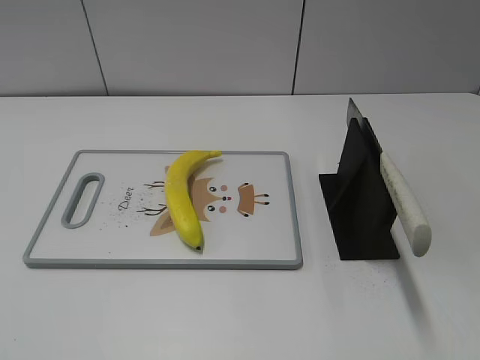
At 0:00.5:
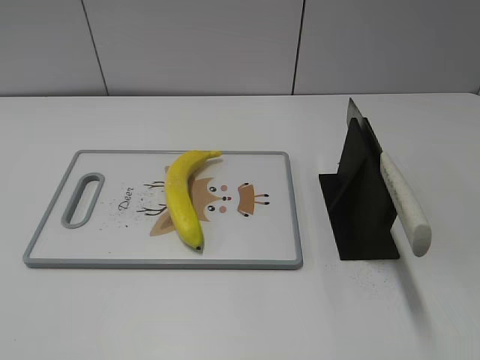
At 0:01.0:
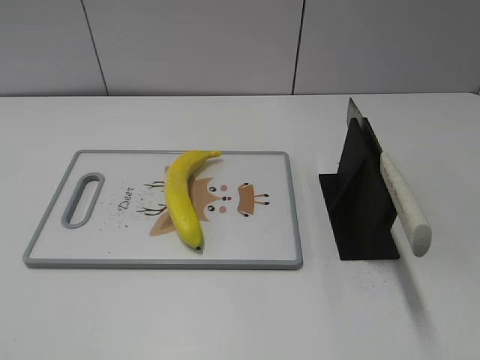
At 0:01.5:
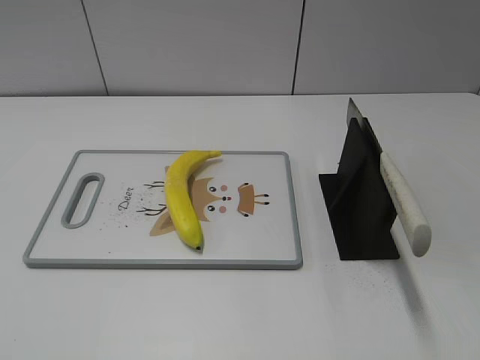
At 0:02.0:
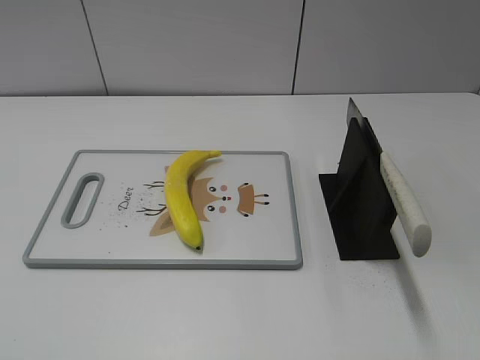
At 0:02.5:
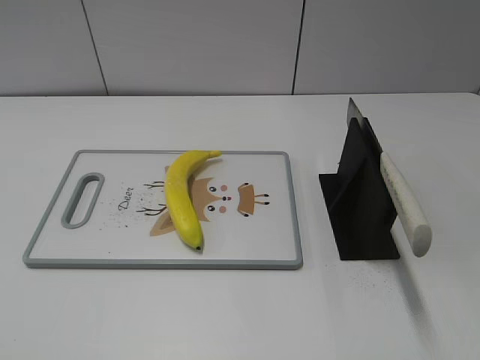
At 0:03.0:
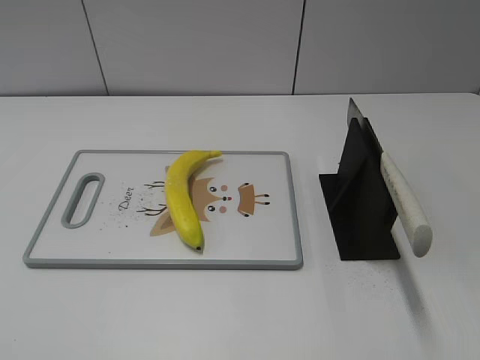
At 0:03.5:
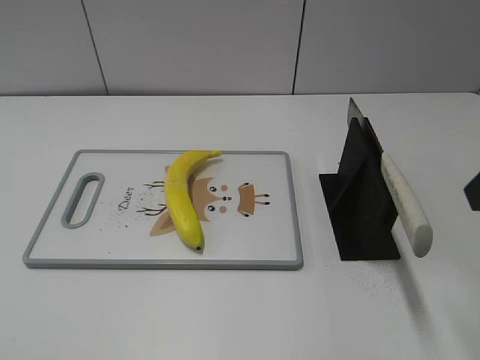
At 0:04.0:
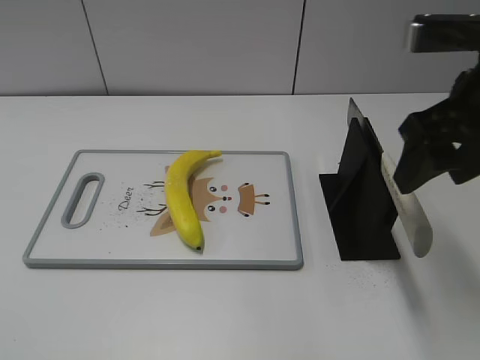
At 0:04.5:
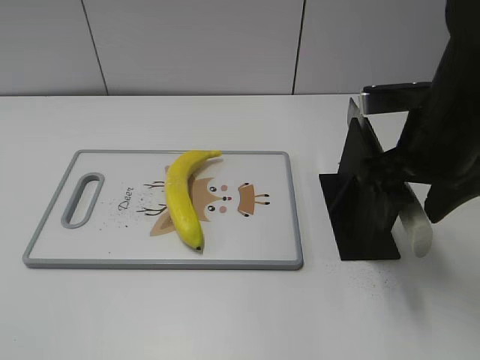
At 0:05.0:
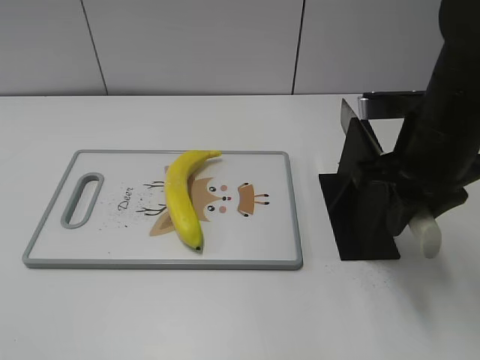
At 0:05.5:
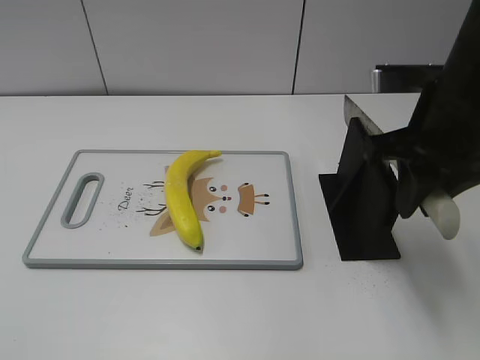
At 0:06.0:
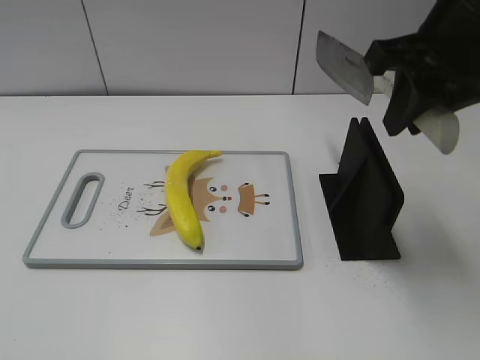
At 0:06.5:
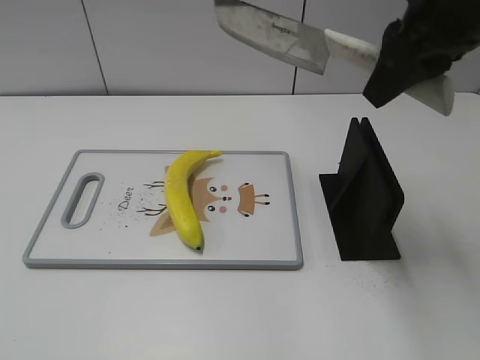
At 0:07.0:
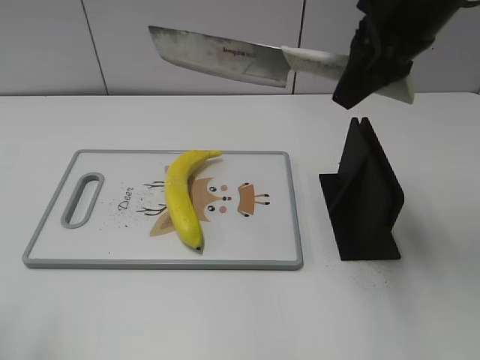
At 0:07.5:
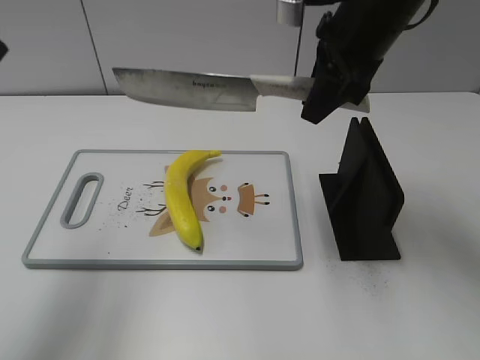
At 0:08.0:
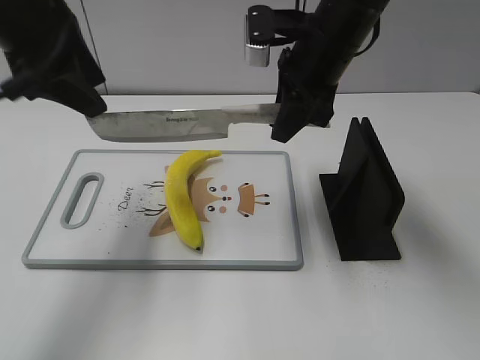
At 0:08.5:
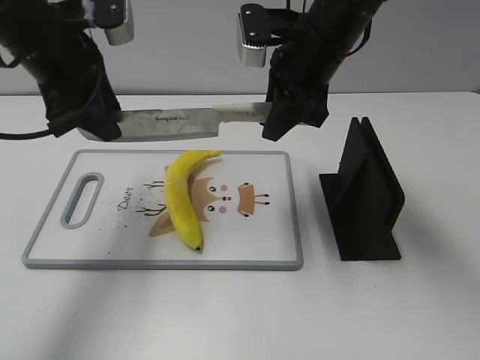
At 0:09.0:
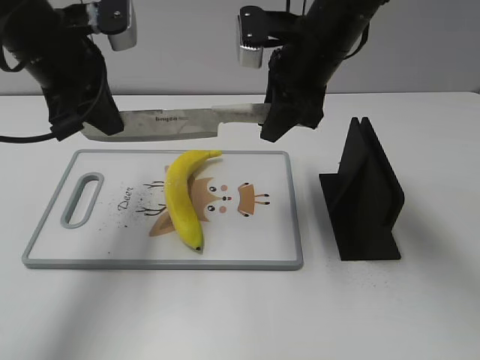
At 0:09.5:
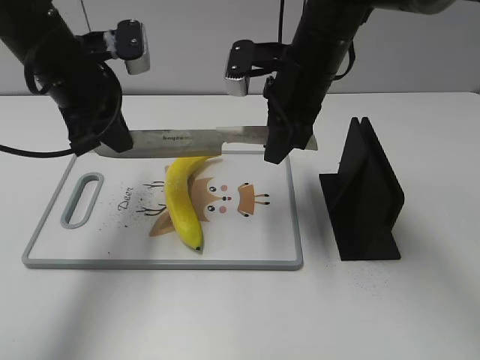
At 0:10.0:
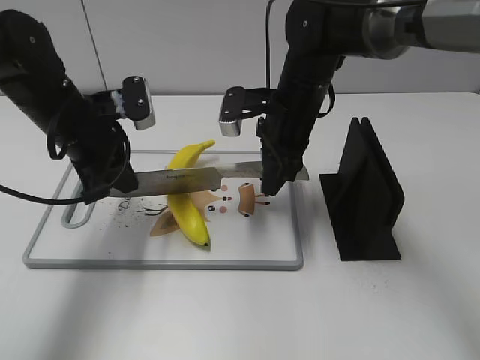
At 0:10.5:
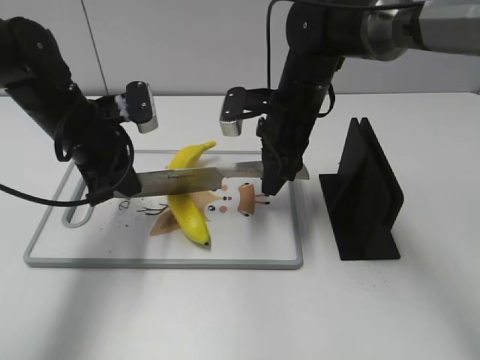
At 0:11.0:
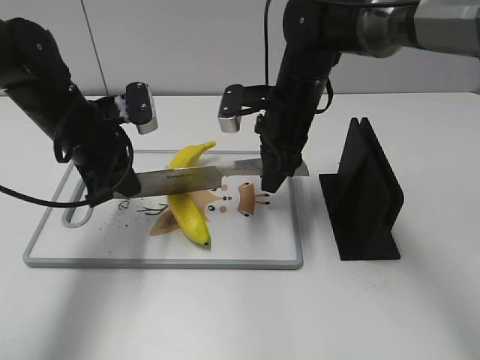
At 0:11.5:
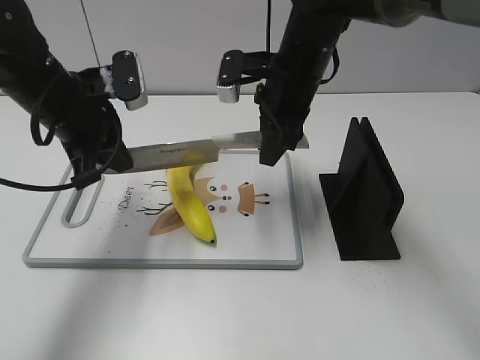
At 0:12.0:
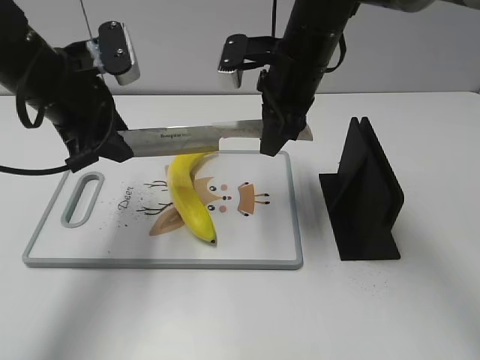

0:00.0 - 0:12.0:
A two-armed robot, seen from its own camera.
Task of the whole recording: cut plastic banana.
Step, 0:00.0 - 0:06.0: Grab the knife handle with your right hand.
Step, 0:06.5 - 0:11.0: Lift the knife with your right hand.
0:02.0 - 0:04.0: The right gripper is displaced forward by some 25 cm.
0:04.0 - 0:06.0: The right gripper goes downward and returns, about 5 cm each way, and closes.
0:06.0 - 0:08.0: The right gripper goes approximately 15 cm forward, to the left and downward; the left gripper heads forward, covering some 35 cm.
0:08.0 - 0:10.0: The right gripper is displaced downward by roughly 10 cm; the left gripper travels downward by about 15 cm, and closes.
0:10.0 - 0:12.0: The two grippers go approximately 5 cm upward. The left gripper opens.

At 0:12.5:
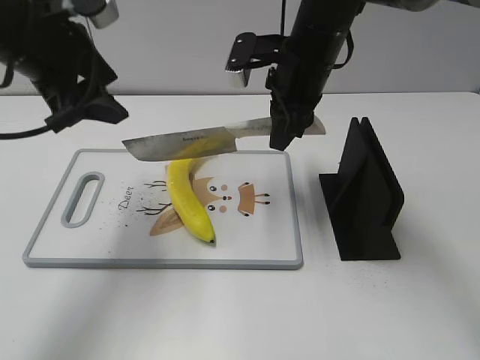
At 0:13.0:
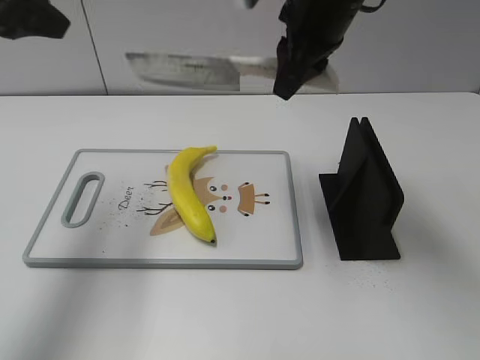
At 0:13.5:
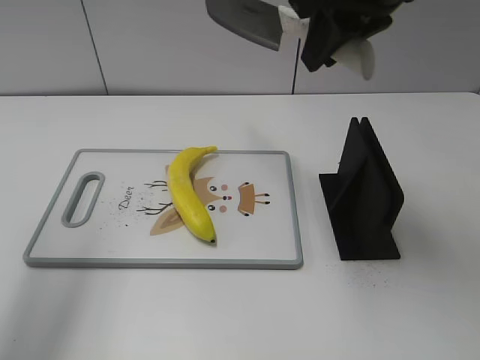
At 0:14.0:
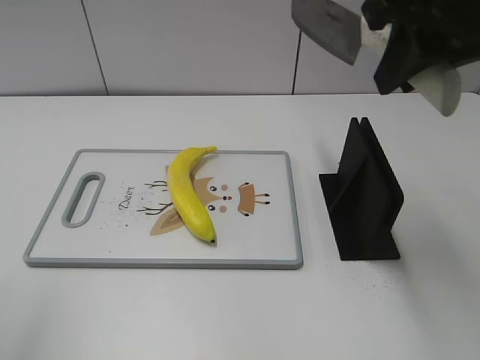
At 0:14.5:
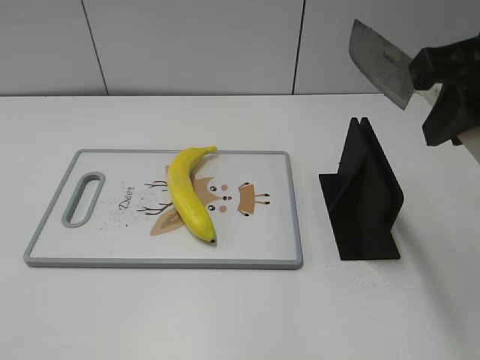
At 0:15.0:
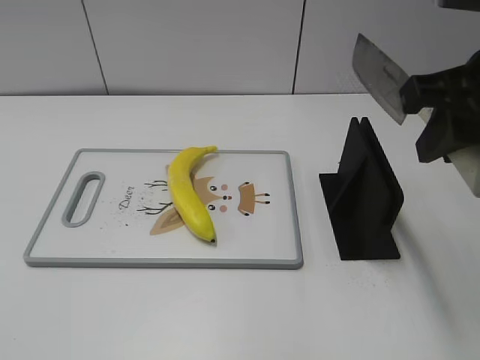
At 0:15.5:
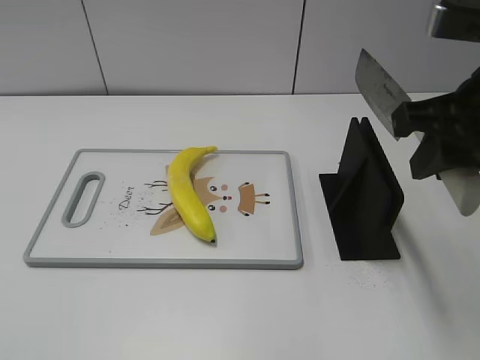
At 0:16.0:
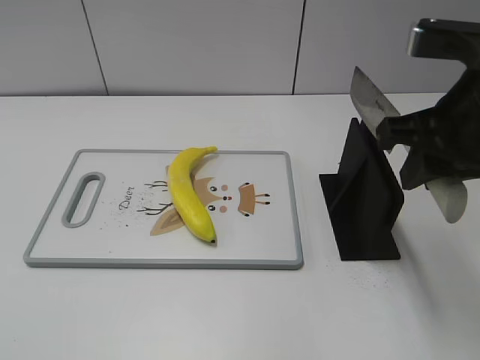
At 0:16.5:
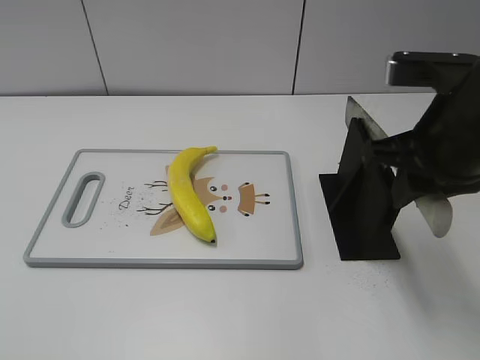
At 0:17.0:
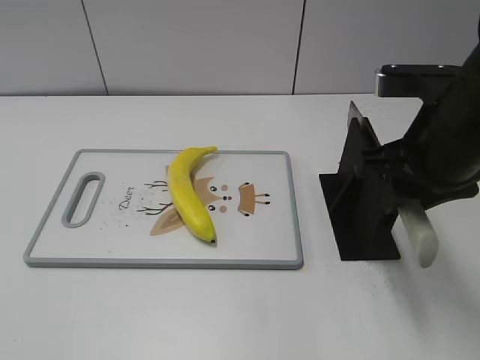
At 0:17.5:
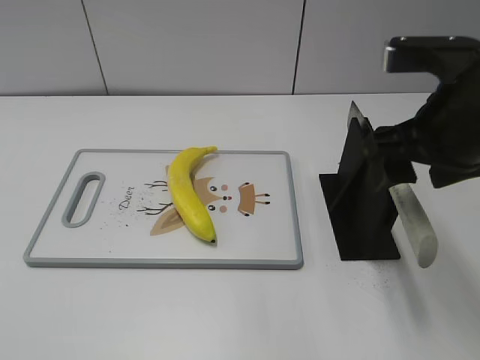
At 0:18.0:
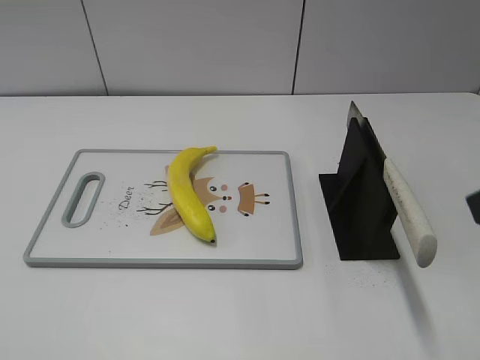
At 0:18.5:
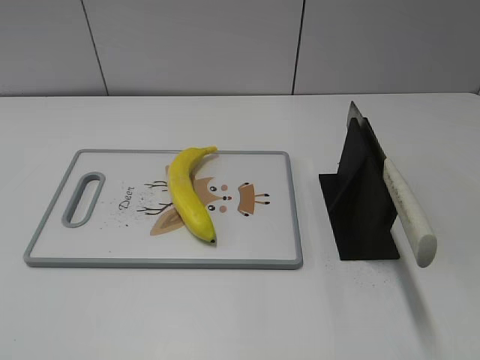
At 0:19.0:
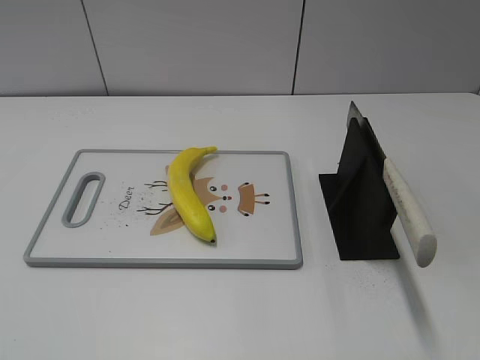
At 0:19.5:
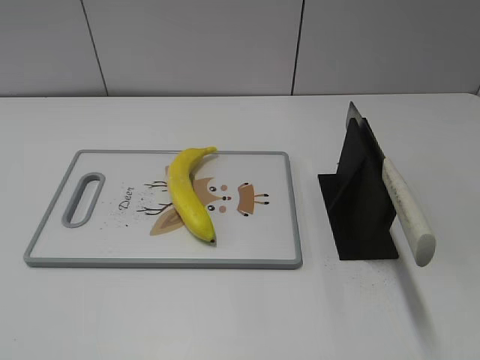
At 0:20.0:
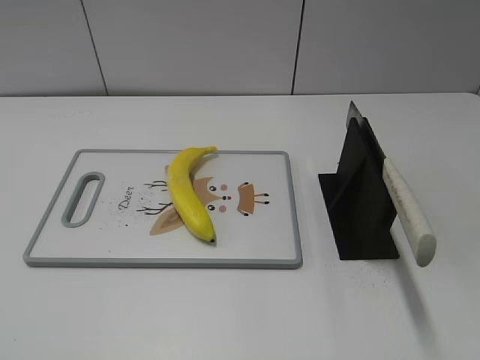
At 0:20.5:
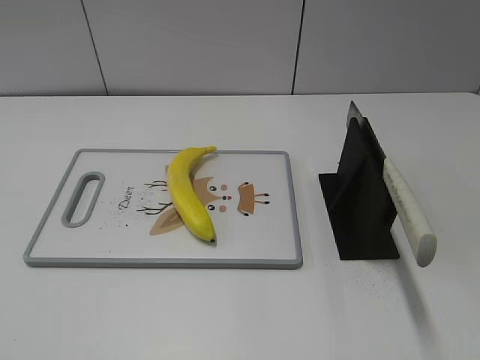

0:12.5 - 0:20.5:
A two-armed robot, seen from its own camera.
Task of the whole recording: cut plastic banana.
Step, 0:14.0 - 0:15.0: Lift the knife with your right hand.
Step, 0:15.5 - 0:20.5: Place the knife on the storage rack with your right hand.
0:12.5 - 0:14.5: The left gripper goes approximately 30 cm backward and to the left; the right gripper moves backward, upward and to the right, roughly 25 cm.
0:14.5 - 0:16.5: The right gripper goes approximately 10 cm downward.
0:16.5 - 0:18.5: The right gripper heads backward and to the right, covering about 20 cm, and opens.

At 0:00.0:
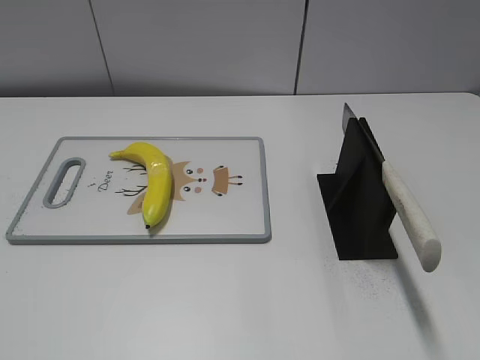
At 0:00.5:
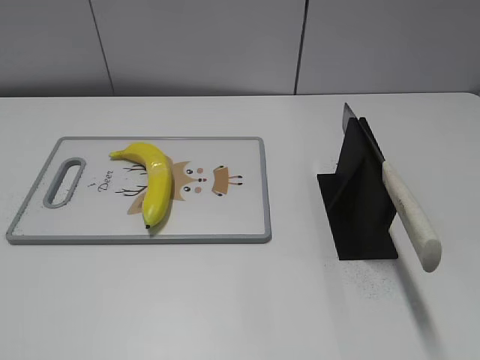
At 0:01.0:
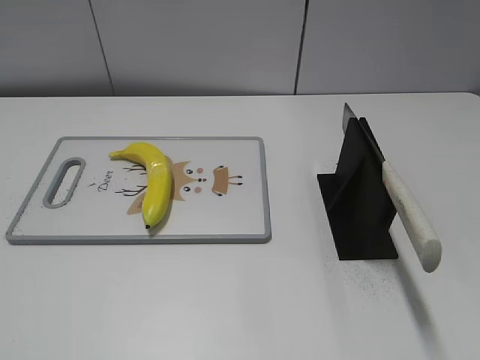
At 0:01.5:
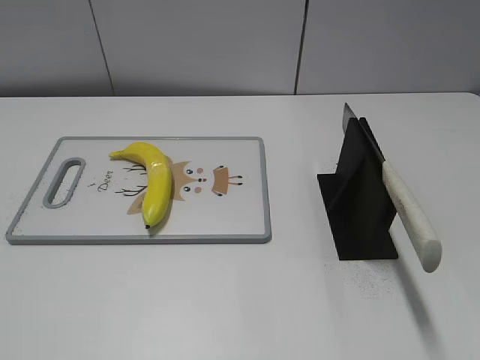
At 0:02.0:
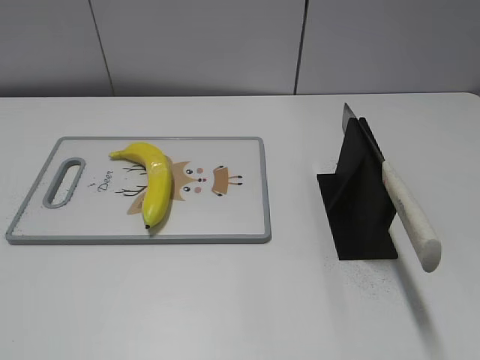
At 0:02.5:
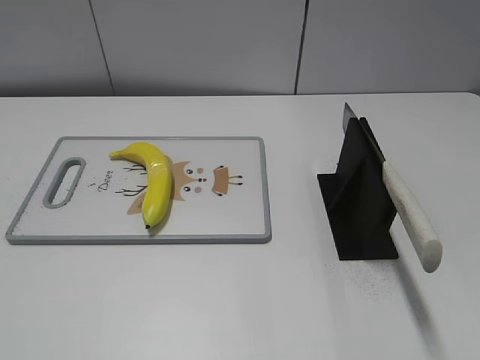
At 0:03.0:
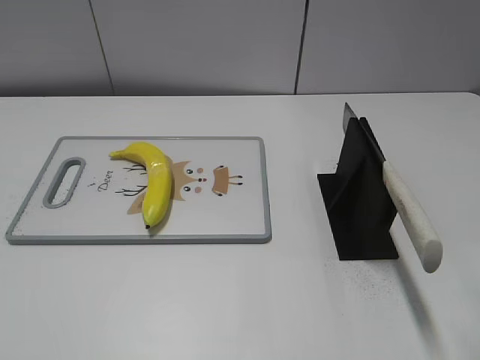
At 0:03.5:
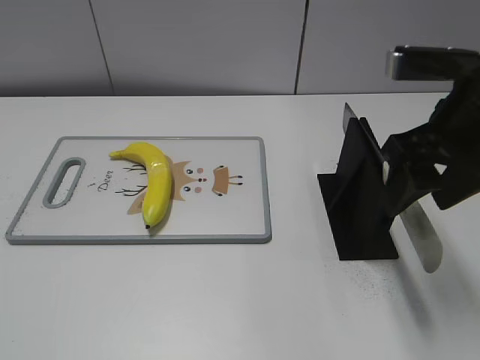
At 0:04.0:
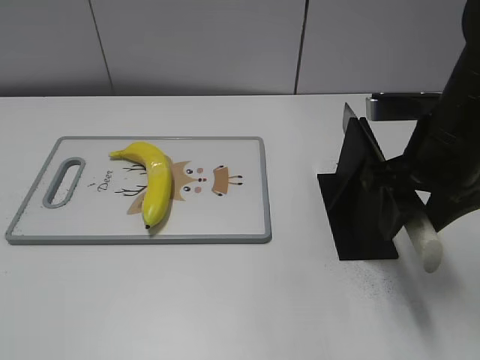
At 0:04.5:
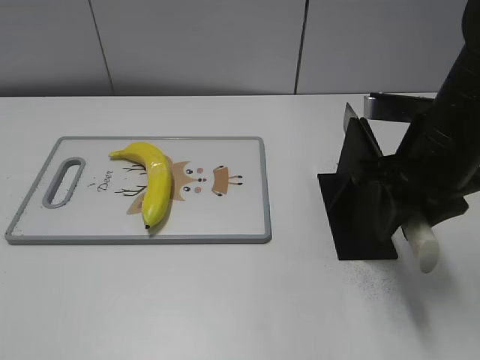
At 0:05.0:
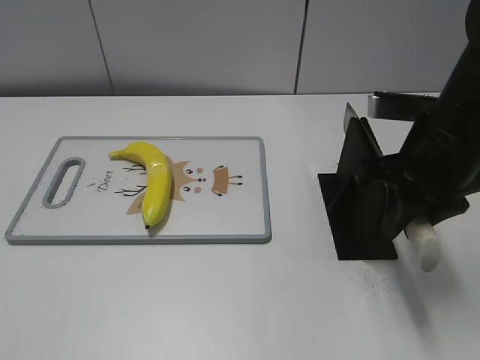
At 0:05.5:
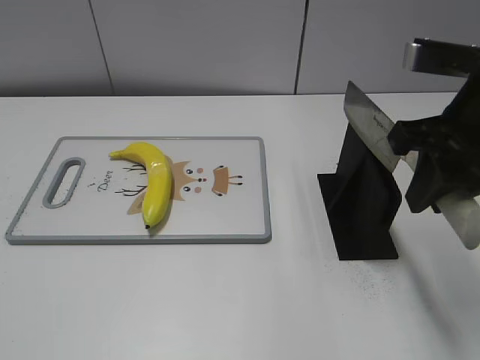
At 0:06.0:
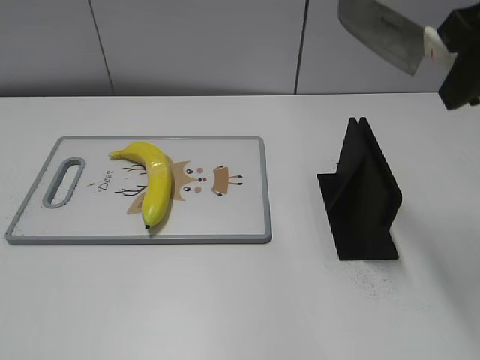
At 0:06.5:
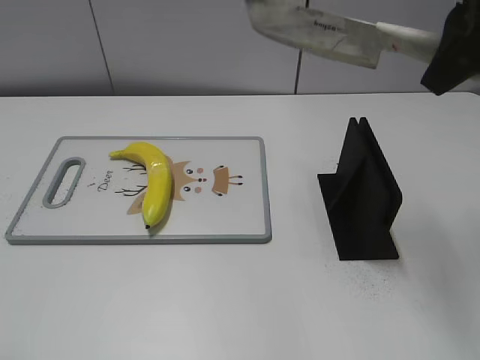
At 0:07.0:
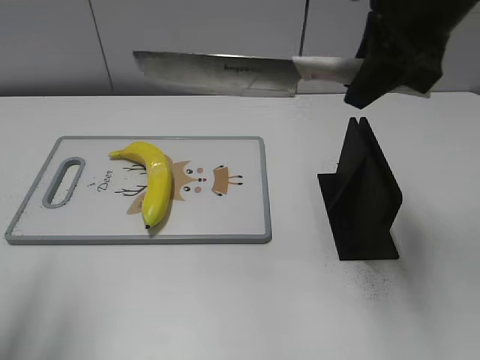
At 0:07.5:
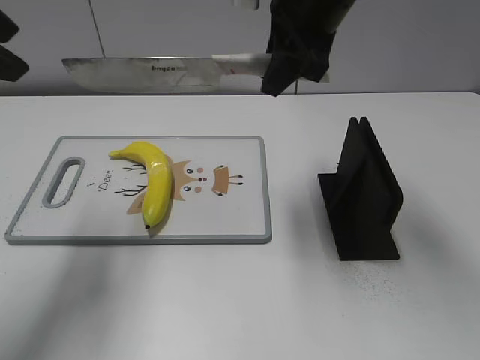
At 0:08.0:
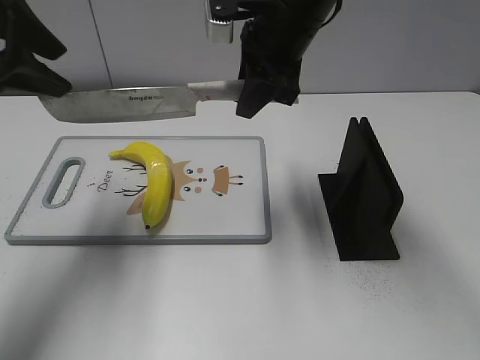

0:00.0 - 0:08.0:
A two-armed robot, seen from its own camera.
Task of the whole recording: cut plastic banana.
Step, 0:00.0 - 0:06.0: Grab the knife handle with your right hand.
0:02.0 - 0:04.0: The right gripper shifts some 30 cm forward and to the left.
0:04.0 - 0:06.0: The right gripper goes approximately 15 cm upward, and closes.
0:06.0 - 0:08.0: The right gripper travels to the left, forward and downward by about 20 cm. Meanwhile the left gripper moves forward, roughly 30 cm.
